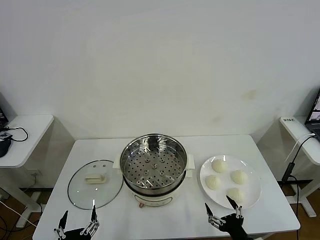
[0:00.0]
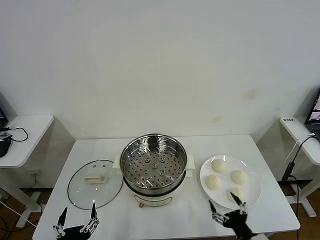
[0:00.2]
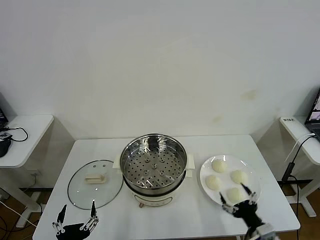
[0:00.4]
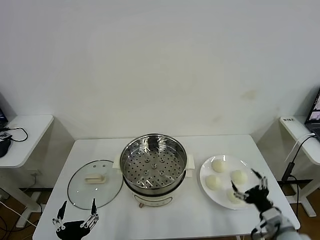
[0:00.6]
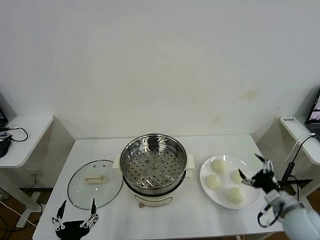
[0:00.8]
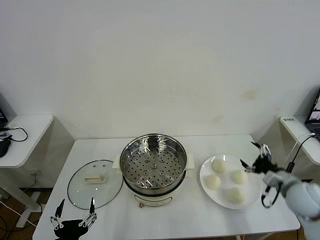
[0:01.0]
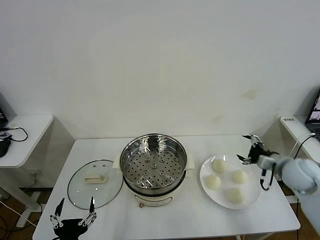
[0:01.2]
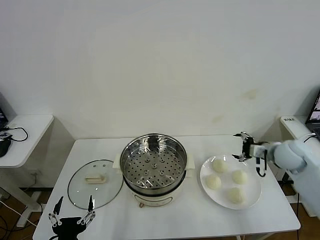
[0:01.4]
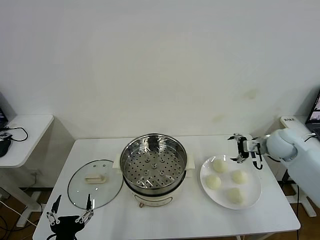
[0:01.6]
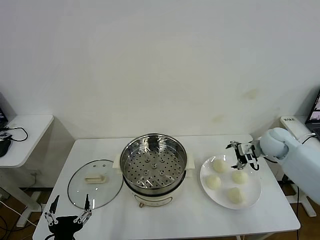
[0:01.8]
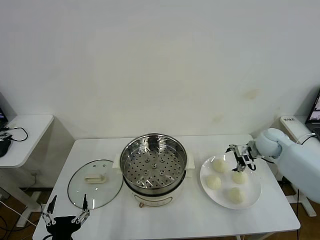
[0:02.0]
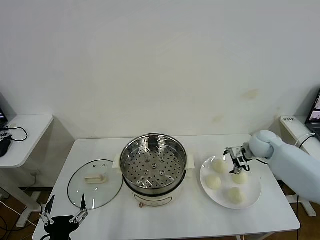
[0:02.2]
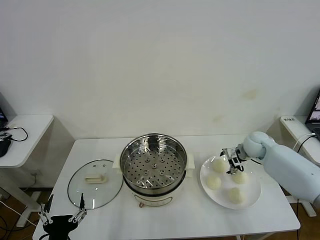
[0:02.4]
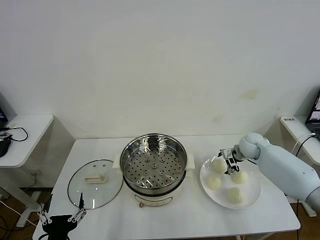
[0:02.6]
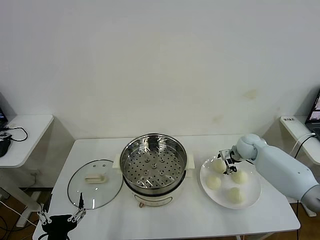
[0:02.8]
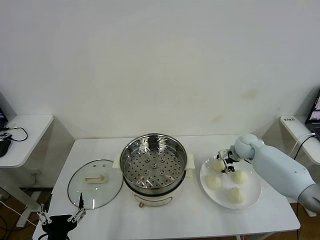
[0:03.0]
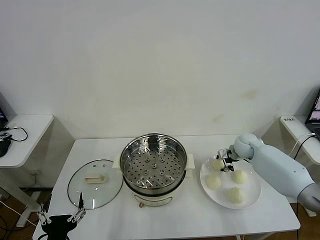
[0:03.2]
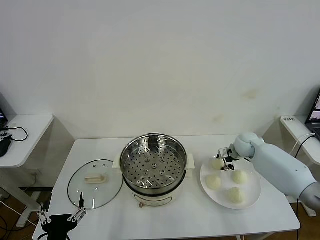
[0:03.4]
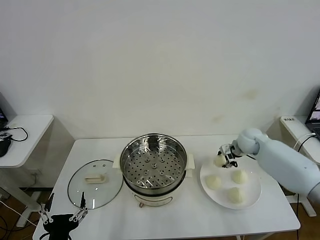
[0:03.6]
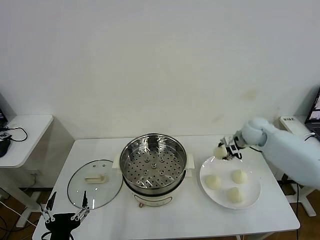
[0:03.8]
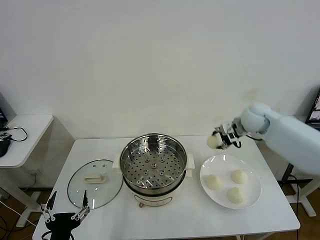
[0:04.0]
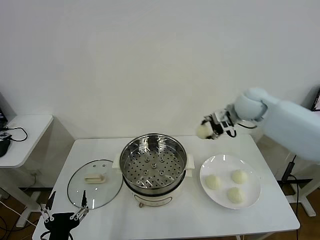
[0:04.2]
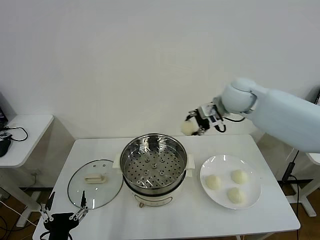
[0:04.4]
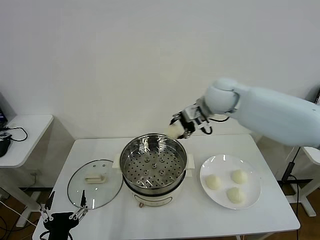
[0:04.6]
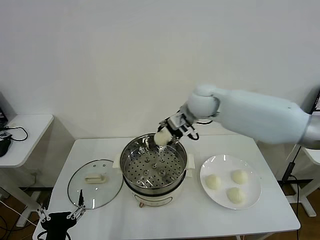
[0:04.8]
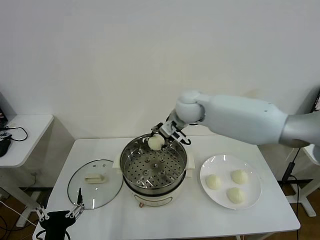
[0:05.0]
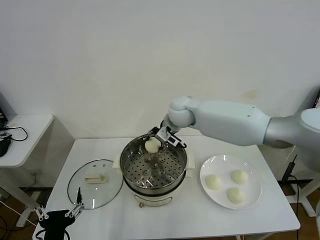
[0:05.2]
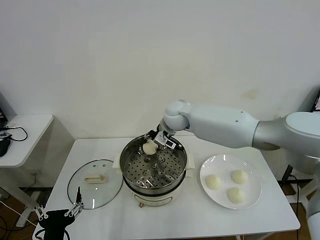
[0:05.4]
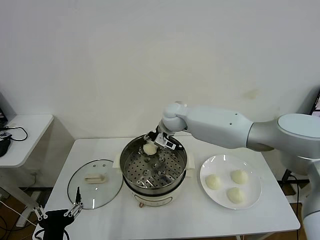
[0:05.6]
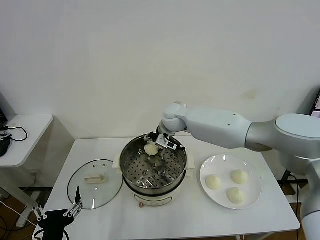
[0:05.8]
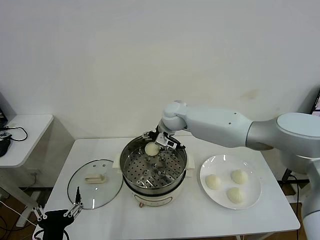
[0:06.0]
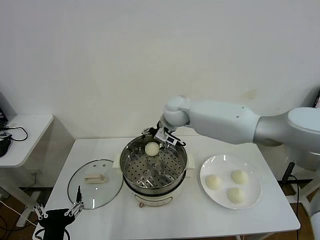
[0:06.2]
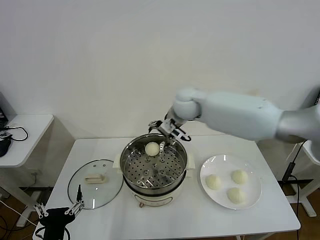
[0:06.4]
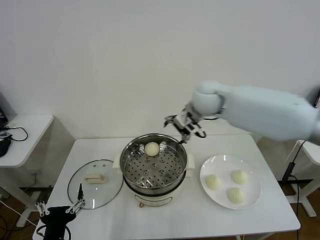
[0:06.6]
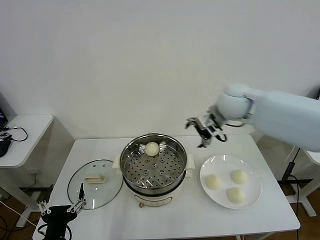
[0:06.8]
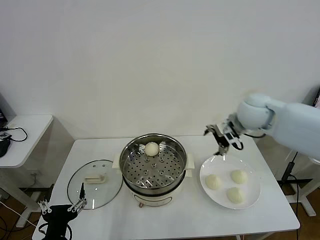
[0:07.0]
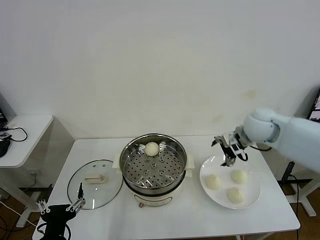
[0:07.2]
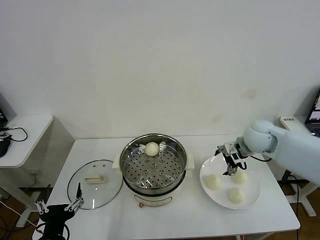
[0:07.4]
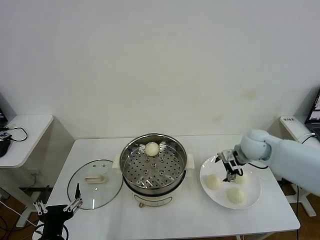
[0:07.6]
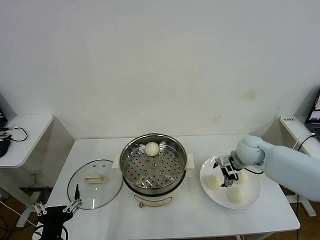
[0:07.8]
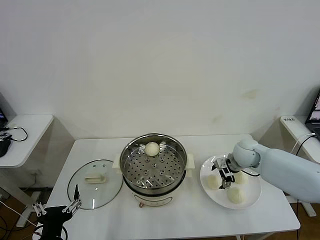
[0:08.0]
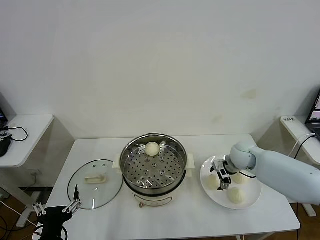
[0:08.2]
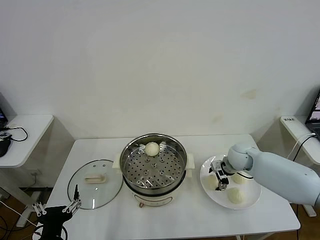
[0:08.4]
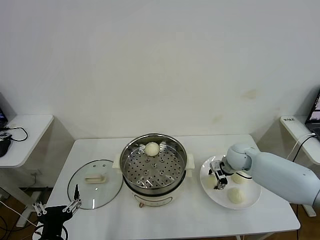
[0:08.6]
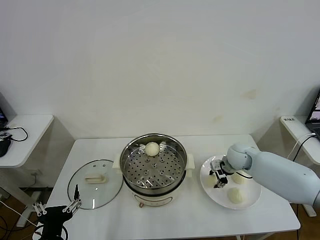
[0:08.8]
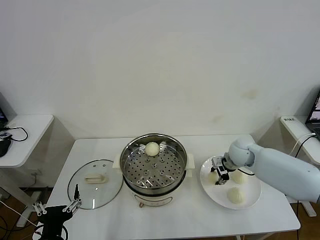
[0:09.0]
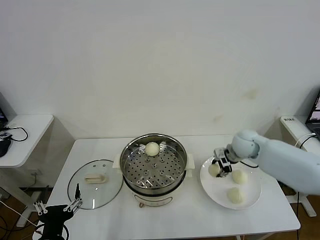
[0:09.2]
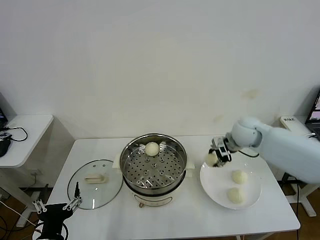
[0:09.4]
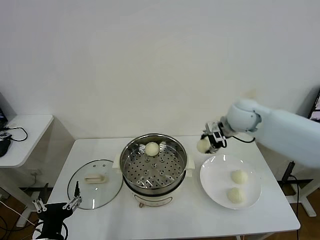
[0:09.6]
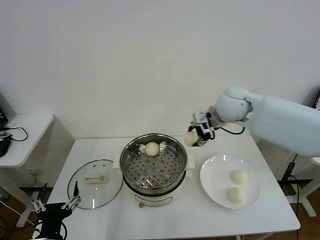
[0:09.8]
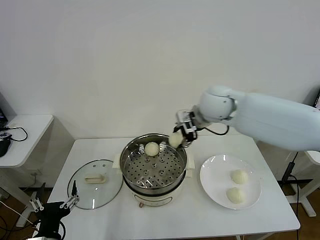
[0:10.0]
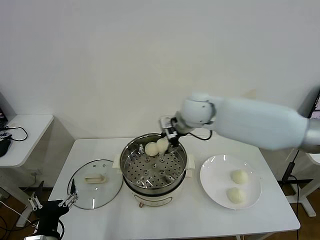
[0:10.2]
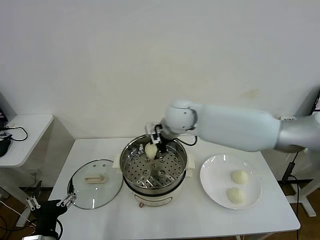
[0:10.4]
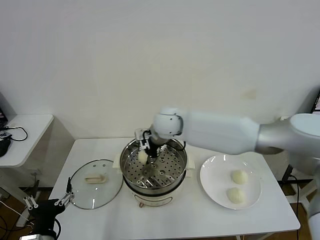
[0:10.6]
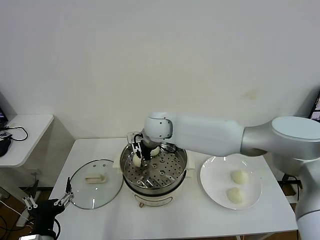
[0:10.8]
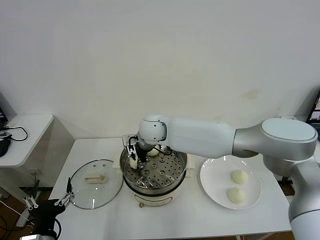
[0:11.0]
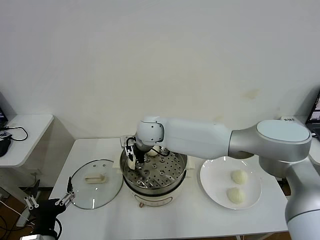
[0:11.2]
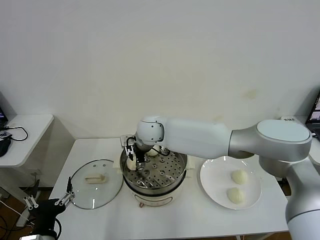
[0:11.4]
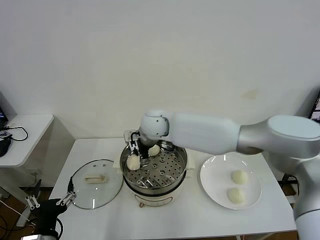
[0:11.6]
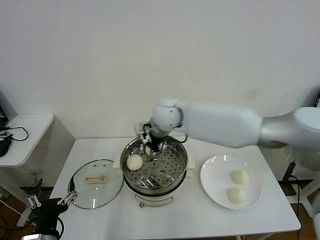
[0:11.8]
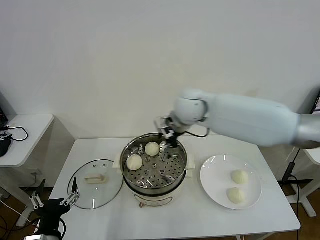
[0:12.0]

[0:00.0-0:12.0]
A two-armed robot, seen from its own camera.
Task of the whole recording: take steamed baozi put them in steamer then cover it.
Step, 0:00.0 to 0:03.0: Grasp the baozi in the plate with right gripper.
Step, 0:03.2 to 0:05.8: Place the baozi on the steamer with right gripper.
Step, 0:06.2 to 0:08.6: Grasp the baozi in the plate with right gripper.
Step, 0:08.8 to 0:11.4: Place the baozi on the steamer with right gripper.
0:01.6 to 0:03.0: The right gripper is displaced downward, forward and to the left by approximately 15 cm, and closes.
0:03.0 to 0:04.4: The right gripper heads upward and to the left, covering roughly 30 cm, and closes its fingers.
0:04.4 to 0:06.0: The right gripper moves to the left and downward, roughly 20 cm, and opens up.
0:06.0 to 0:07.6: The right gripper goes approximately 25 cm to the right.
0:07.6 to 0:09.0: The right gripper heads downward, covering about 5 cm, and closes its fingers.
0:09.0 to 0:10.4: The right gripper travels to the left and upward by approximately 30 cm.
0:10.4 to 0:12.0: The right gripper travels to the left and back again, roughly 10 cm each way, and opens up.

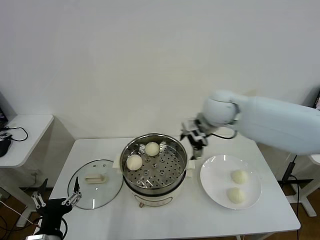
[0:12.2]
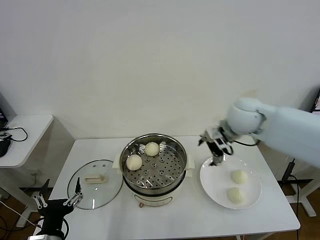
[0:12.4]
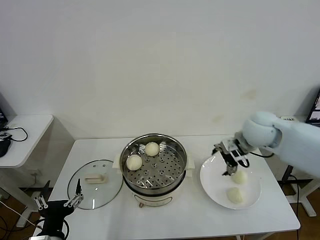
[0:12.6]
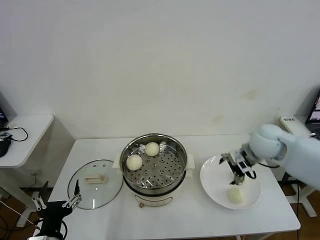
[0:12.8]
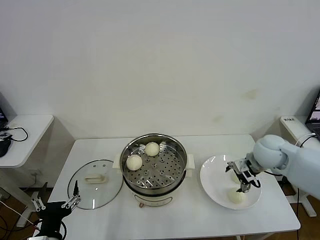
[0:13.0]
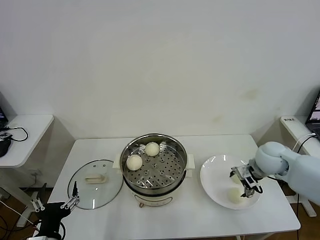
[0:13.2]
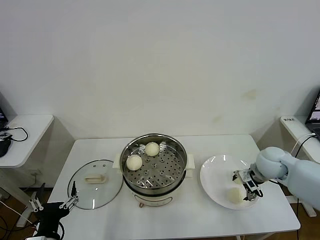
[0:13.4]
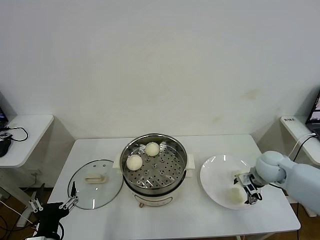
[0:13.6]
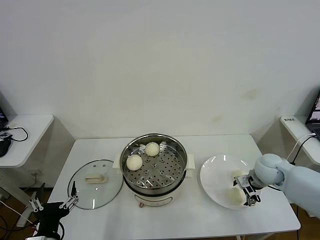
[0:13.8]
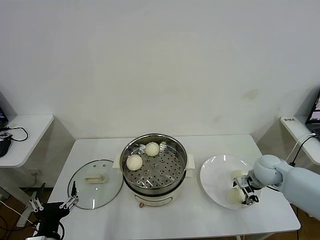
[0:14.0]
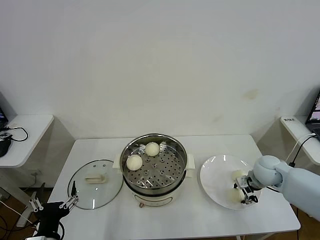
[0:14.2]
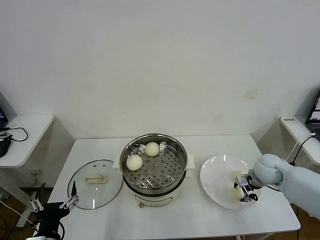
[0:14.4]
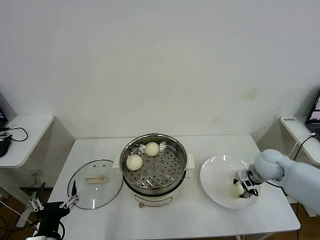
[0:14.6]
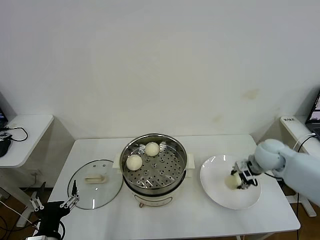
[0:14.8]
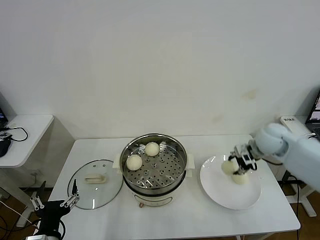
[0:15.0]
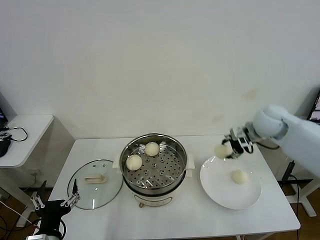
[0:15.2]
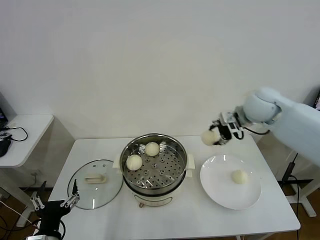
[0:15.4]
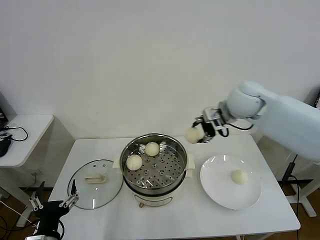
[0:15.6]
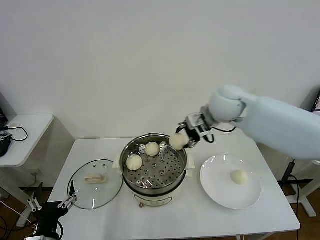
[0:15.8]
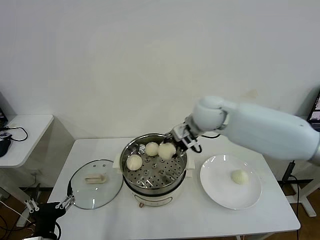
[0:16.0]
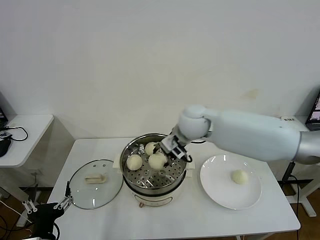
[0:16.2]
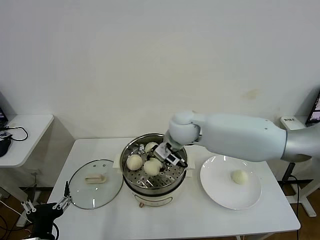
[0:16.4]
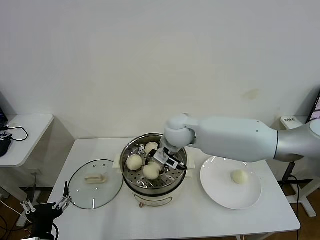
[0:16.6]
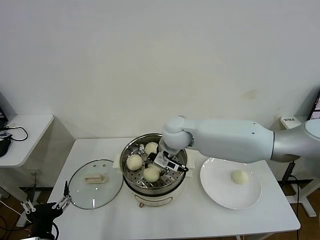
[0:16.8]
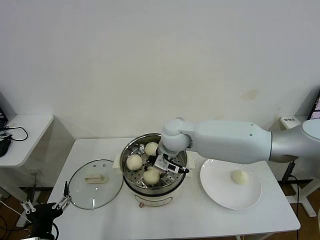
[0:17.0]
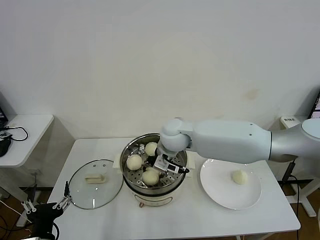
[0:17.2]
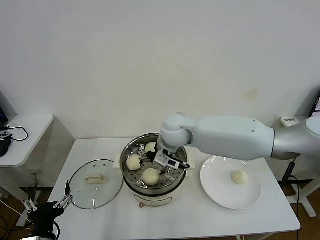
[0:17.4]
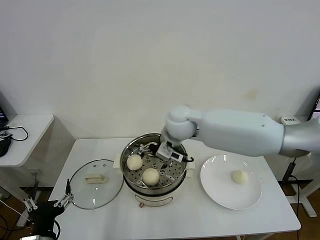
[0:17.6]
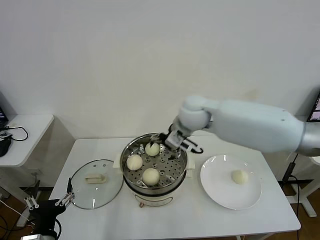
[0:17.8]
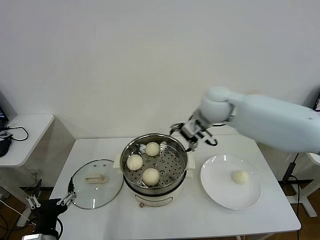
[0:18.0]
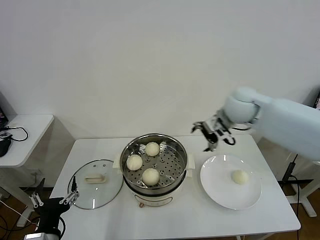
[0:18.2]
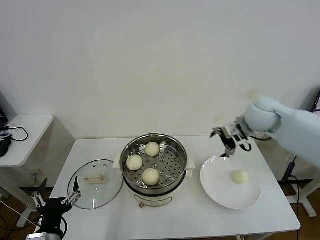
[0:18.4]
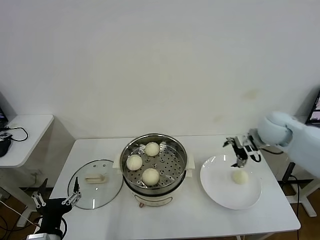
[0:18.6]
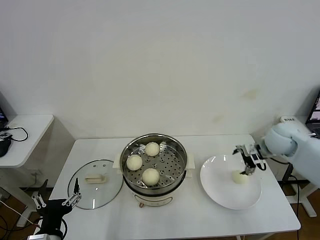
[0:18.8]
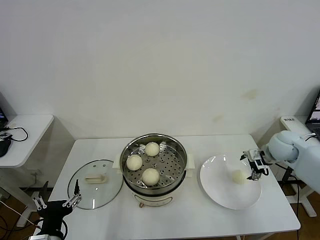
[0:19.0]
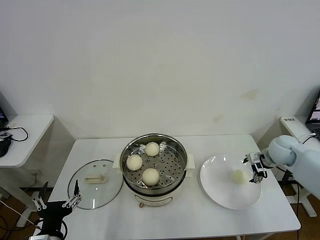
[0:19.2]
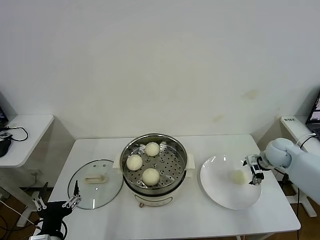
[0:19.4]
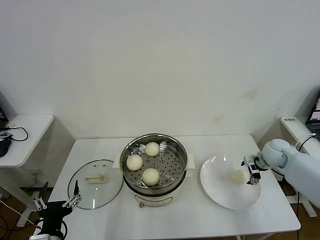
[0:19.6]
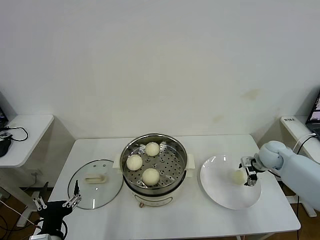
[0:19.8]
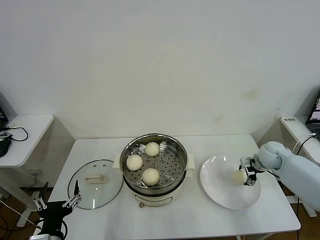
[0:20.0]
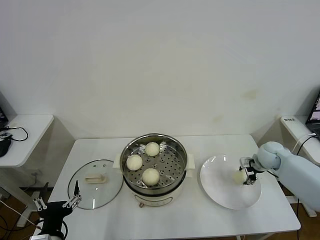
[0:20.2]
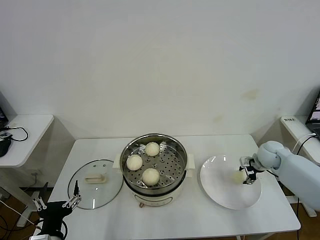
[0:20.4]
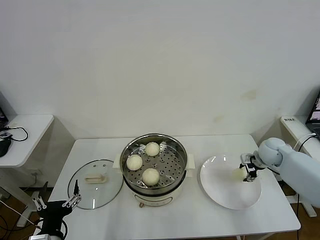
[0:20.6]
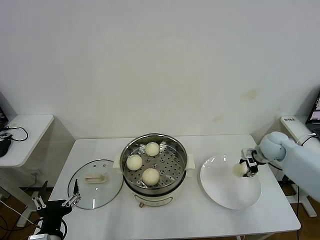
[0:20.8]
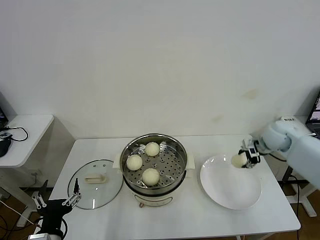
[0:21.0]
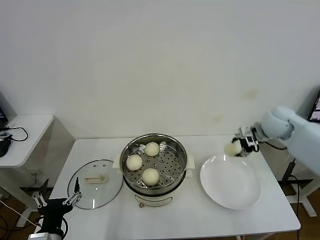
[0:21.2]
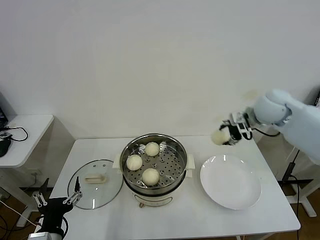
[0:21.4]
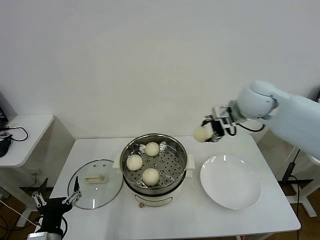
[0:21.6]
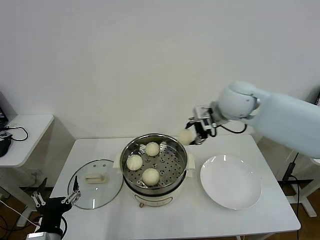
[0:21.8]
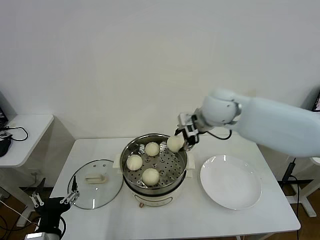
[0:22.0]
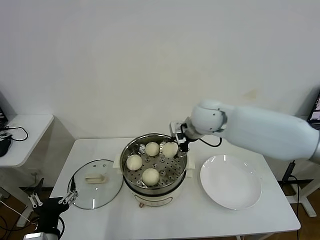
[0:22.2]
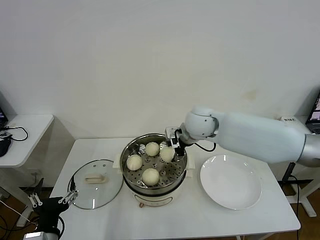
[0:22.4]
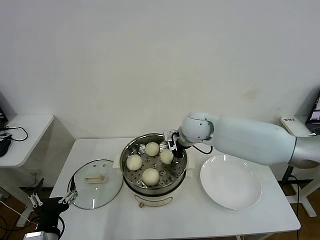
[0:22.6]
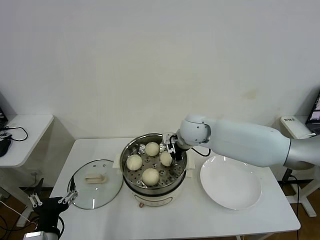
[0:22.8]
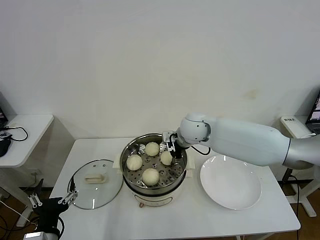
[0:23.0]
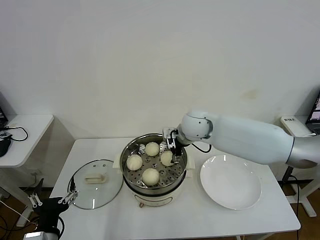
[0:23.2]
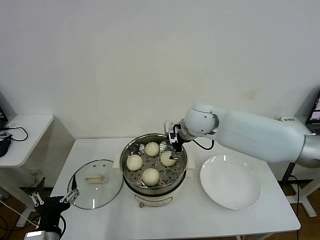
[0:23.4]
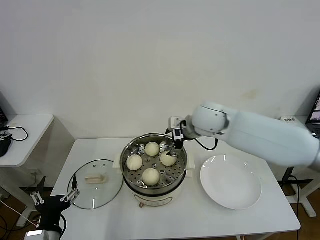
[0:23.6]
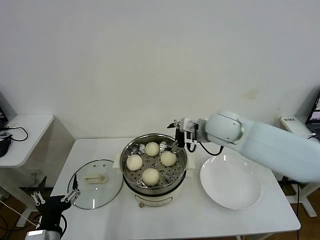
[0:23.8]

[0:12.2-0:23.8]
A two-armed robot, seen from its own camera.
Task of the whole recording: take steamed baozi put them in steamer then cover it.
Step, 0:12.2 to 0:14.2: Grasp the baozi in the plate with right gripper.
Step, 0:14.4 to 0:17.4: Place the baozi on the steamer with right gripper.
Step, 0:17.6 to 0:20.2: Grasp the baozi in the plate with right gripper.
Step, 0:20.6 to 0:23.0: Place the baozi on the steamer with right gripper.
0:12.2 to 0:13.6: The right gripper goes about 30 cm to the right and downward.
0:13.6 to 0:15.0: The right gripper travels upward by about 10 cm, and closes its fingers.
0:15.0 to 0:16.6: The right gripper travels to the left by roughly 30 cm.
0:16.6 to 0:18.0: The right gripper shifts approximately 15 cm to the right and upward, and opens.
0:18.0 to 0:19.4: The right gripper moves to the right and downward, roughly 35 cm.
0:19.4 to 0:21.0: The right gripper moves upward, about 5 cm, and closes.
0:21.0 to 0:22.4: The right gripper shifts some 30 cm to the left.
0:22.4 to 0:23.8: The right gripper ends up approximately 5 cm from where it was, and opens.
